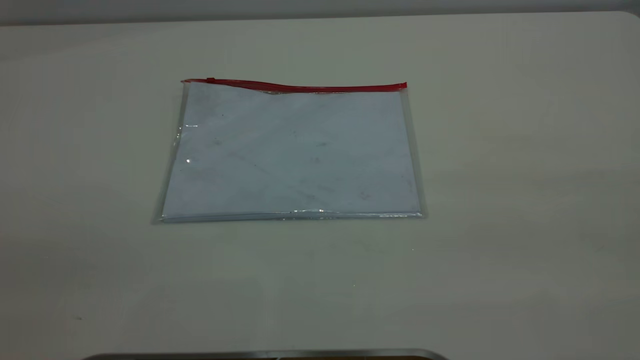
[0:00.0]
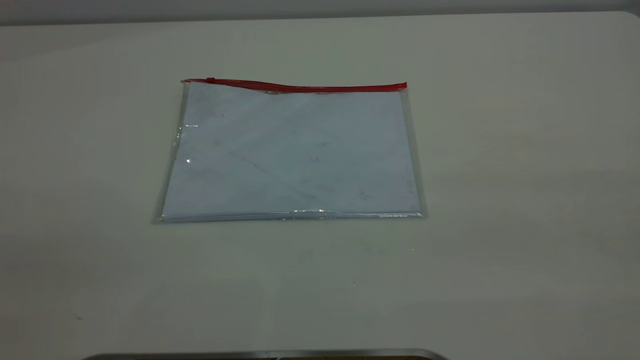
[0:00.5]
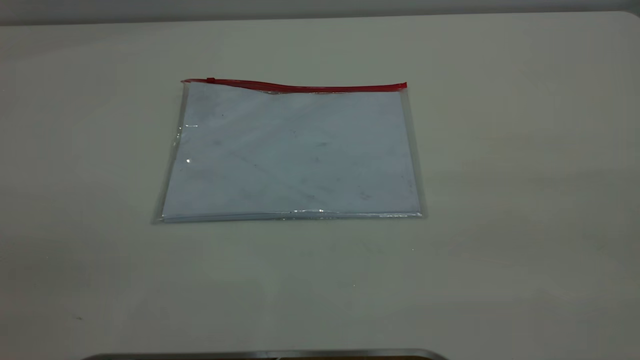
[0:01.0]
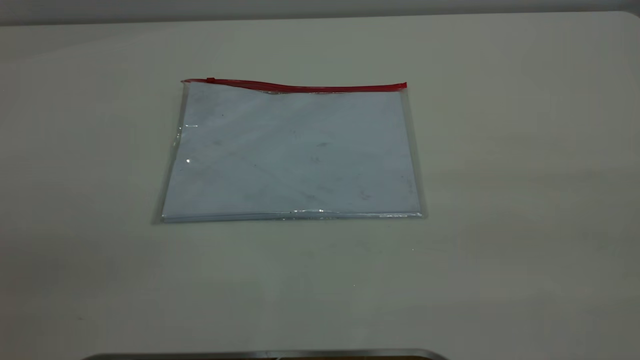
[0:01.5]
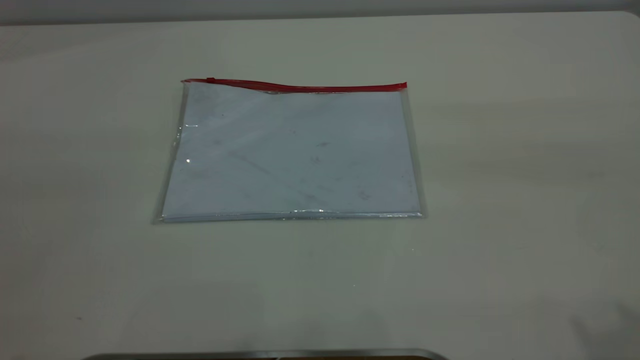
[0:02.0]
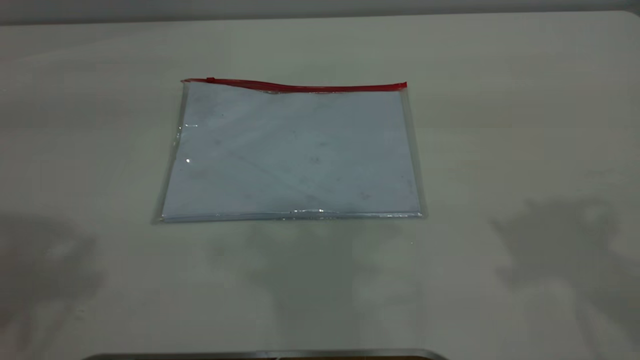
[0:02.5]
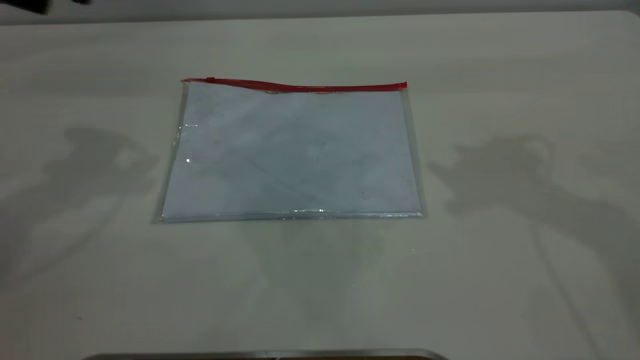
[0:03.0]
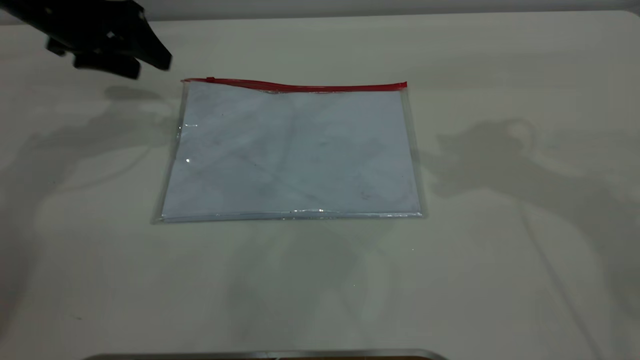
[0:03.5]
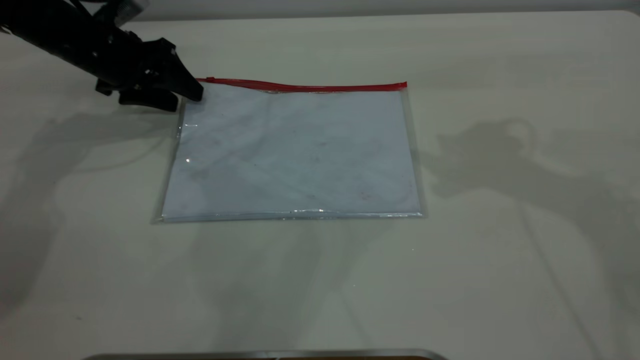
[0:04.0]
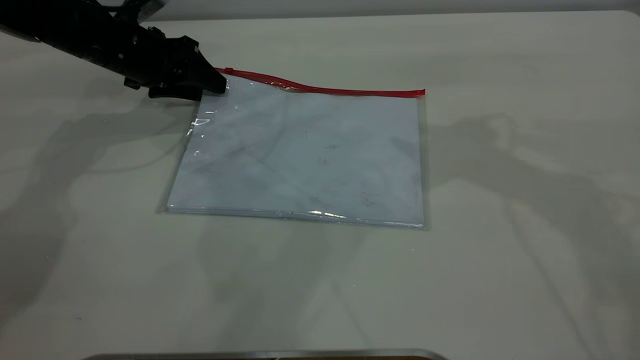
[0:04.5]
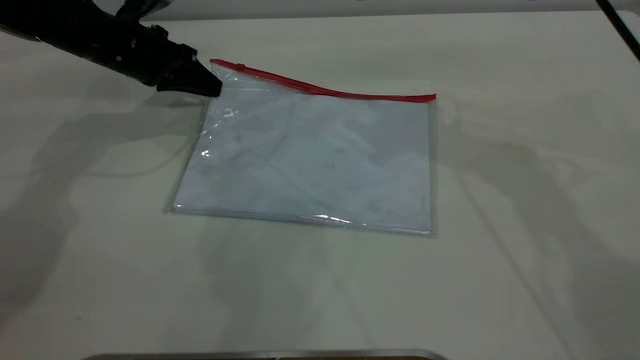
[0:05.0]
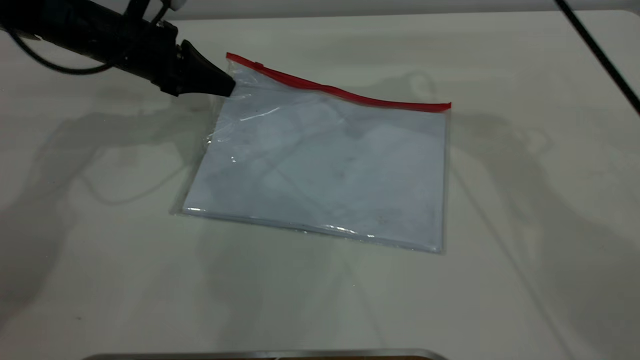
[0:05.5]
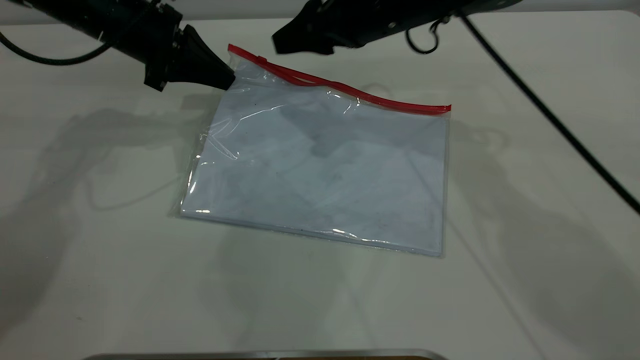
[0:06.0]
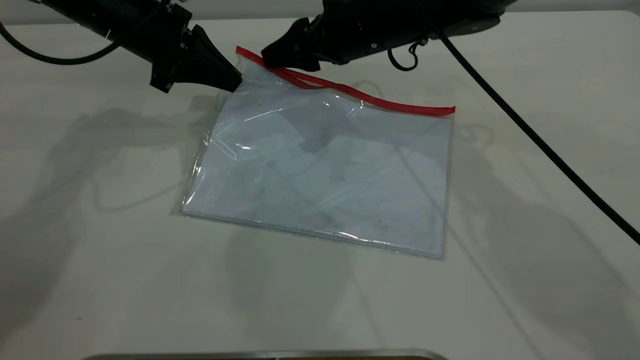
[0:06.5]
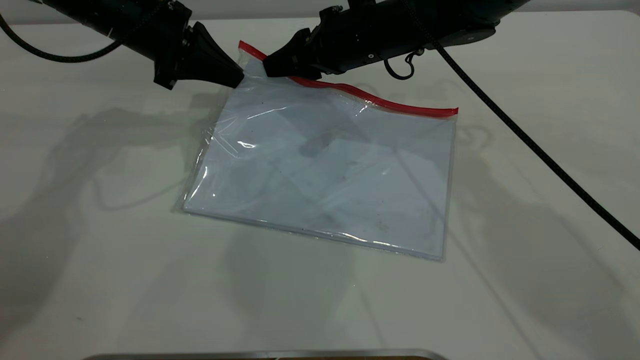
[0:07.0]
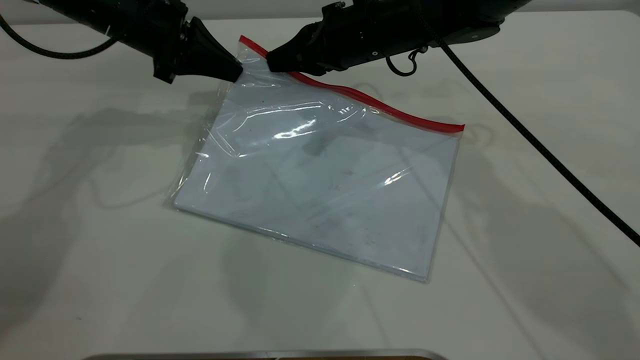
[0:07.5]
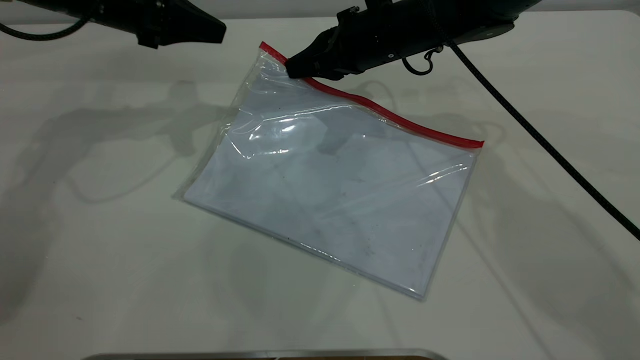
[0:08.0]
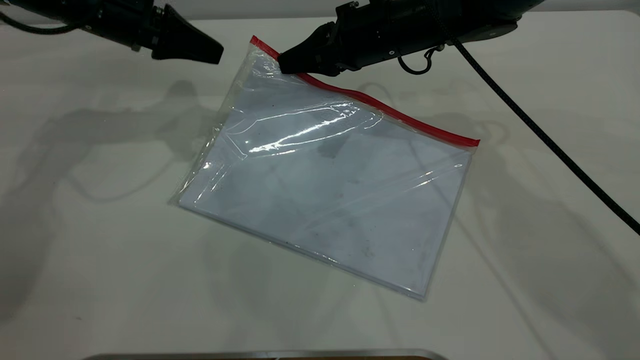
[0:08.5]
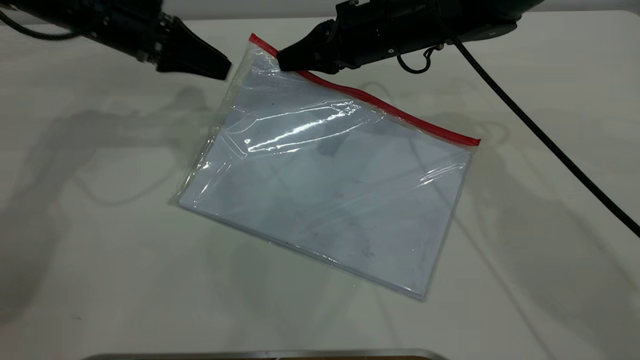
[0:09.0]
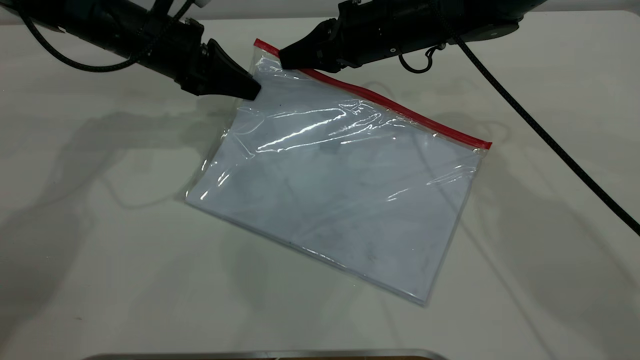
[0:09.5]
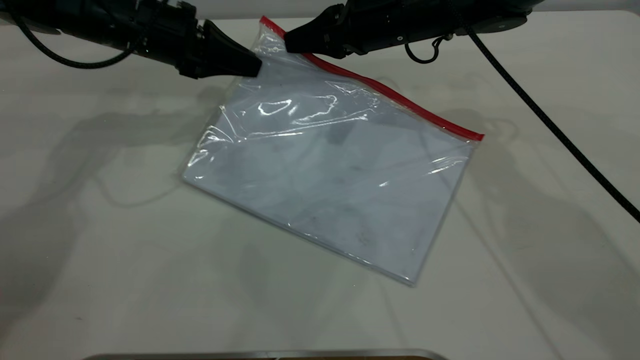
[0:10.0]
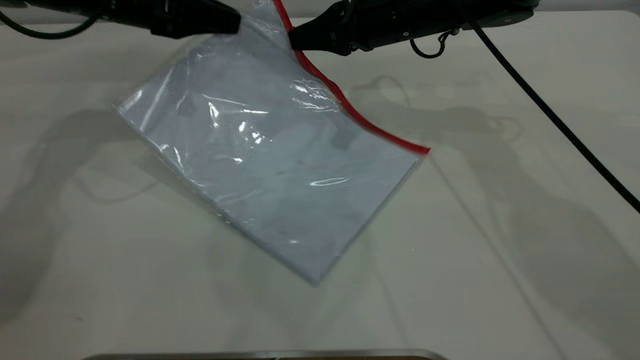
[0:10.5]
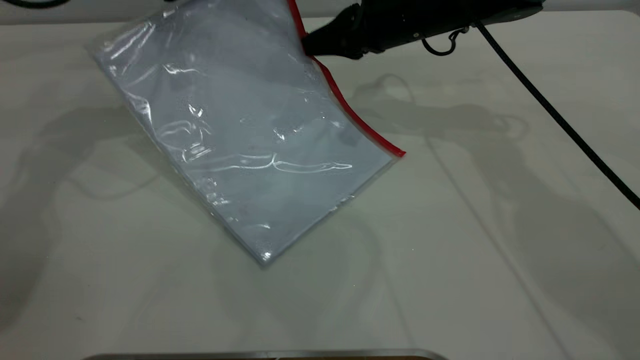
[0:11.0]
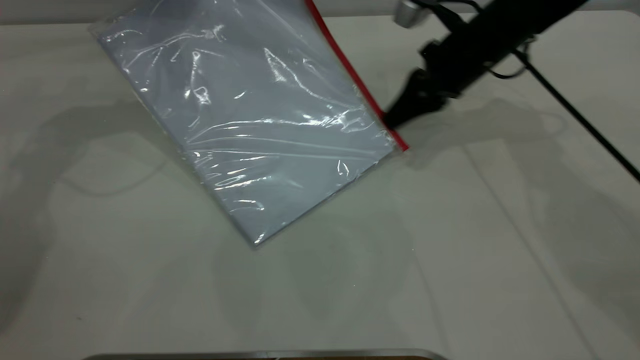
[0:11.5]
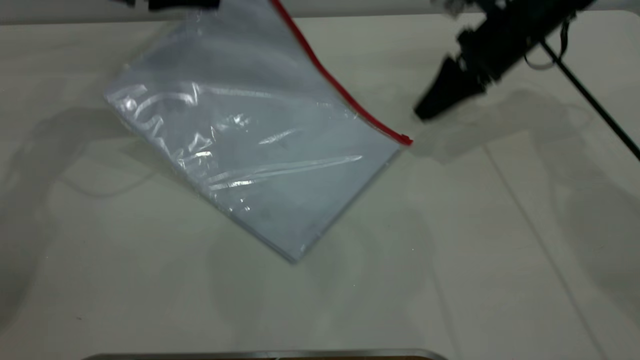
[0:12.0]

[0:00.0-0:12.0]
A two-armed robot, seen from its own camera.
Step, 0:00.0 to 0:05.5: Pick up the transparent plastic bag with the left gripper.
Step, 0:06.0 to 0:11.5: Pulling up the zipper on the transparent plastic bag with the right gripper to close it.
0:02.0 to 0:04.0: The left gripper travels forward and downward by roughly 50 cm.
0:04.0 to 0:06.0: The left gripper changes place by some 5 cm, and closes; the right gripper travels to the left, downward and forward by some 20 cm.
0:06.0 to 0:08.0: The right gripper closes its fingers.
0:08.0 to 0:10.0: The left gripper opens, then closes once more.
0:10.0 to 0:12.0: The left gripper is displaced upward by roughly 5 cm; the right gripper shifts roughly 10 cm to the right, and opens up.

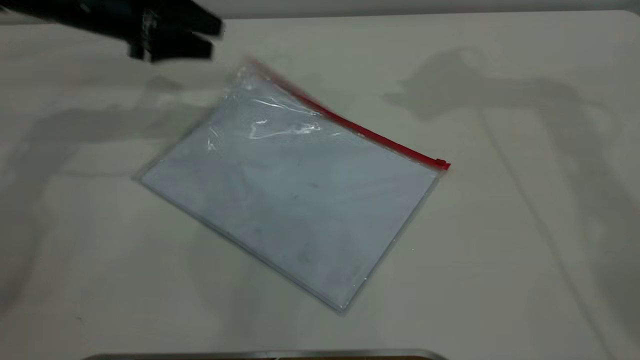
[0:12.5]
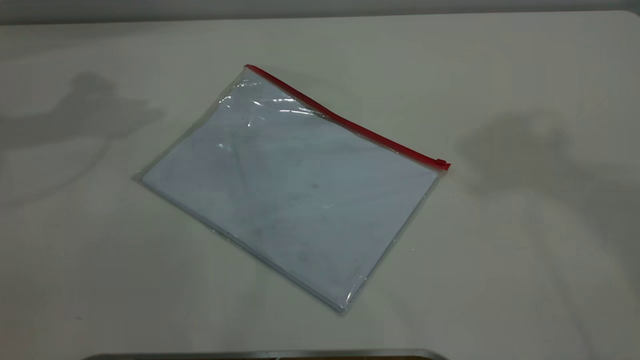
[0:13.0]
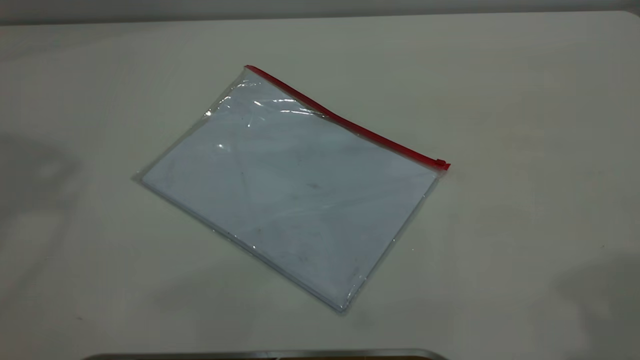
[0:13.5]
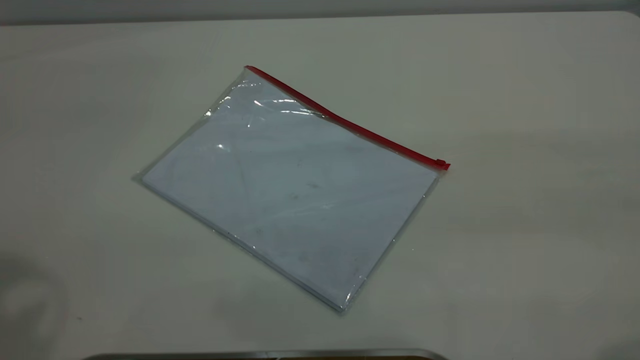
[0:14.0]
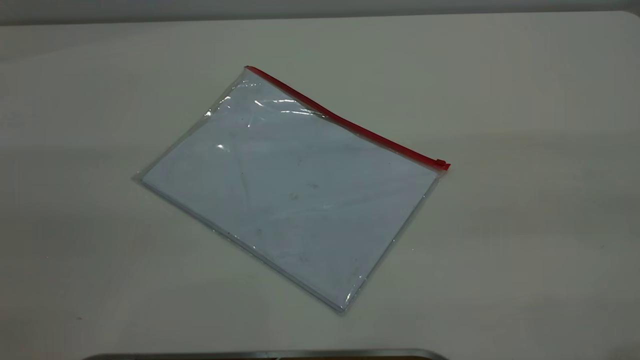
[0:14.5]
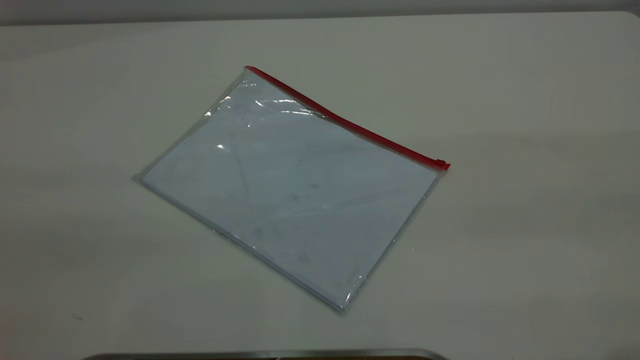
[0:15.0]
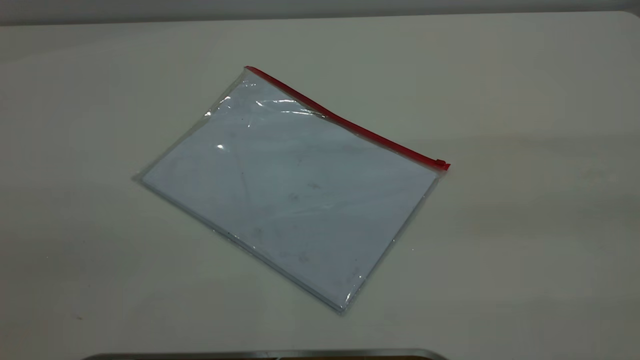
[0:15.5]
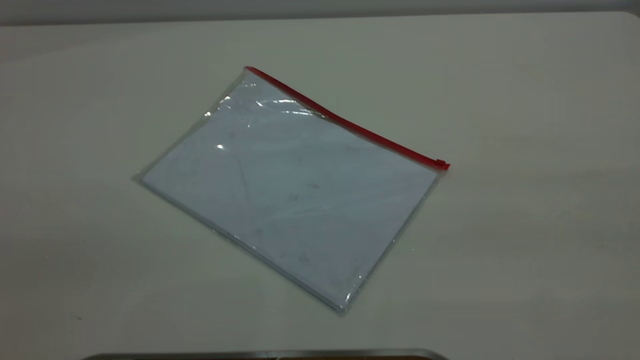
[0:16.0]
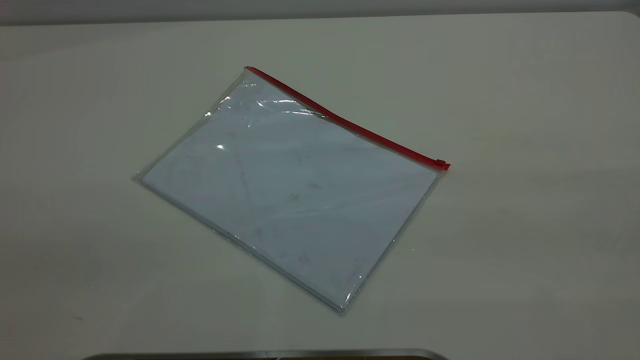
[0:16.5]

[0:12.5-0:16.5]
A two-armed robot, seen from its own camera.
0:12.5 to 0:14.5: The right gripper shifts some 40 cm backward; the left gripper heads backward and upward, covering about 40 cm.
